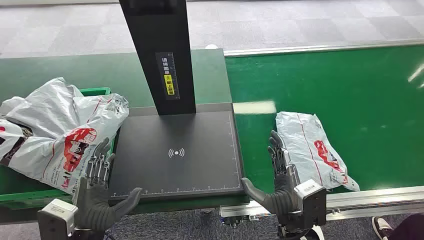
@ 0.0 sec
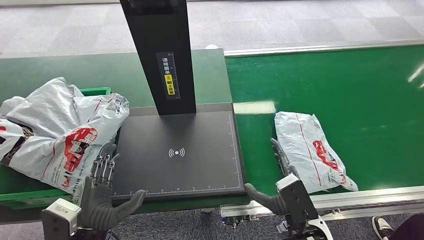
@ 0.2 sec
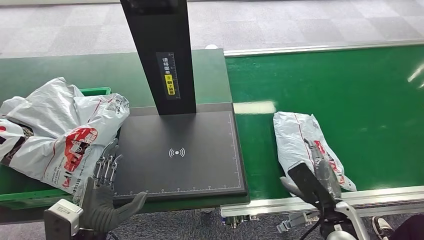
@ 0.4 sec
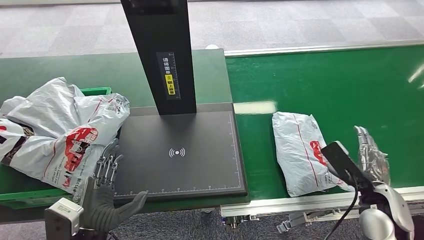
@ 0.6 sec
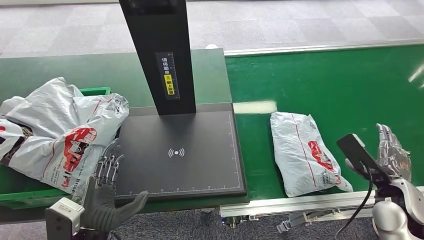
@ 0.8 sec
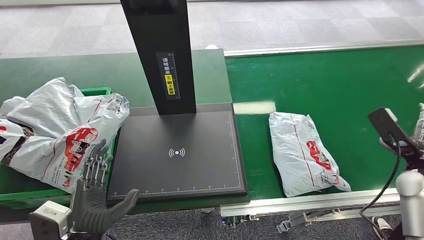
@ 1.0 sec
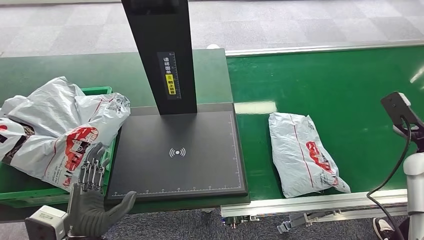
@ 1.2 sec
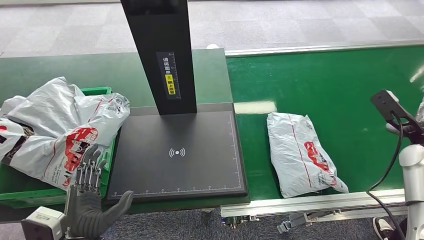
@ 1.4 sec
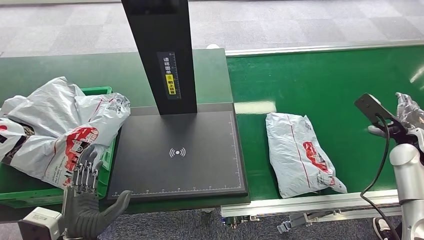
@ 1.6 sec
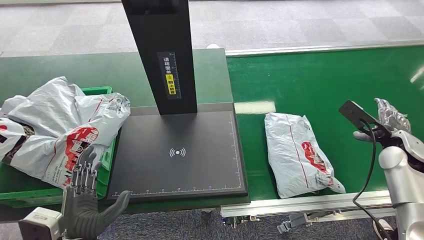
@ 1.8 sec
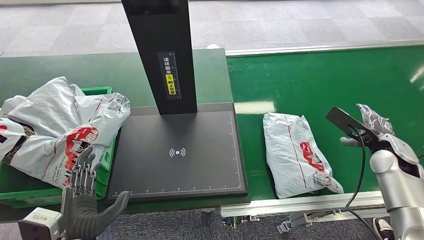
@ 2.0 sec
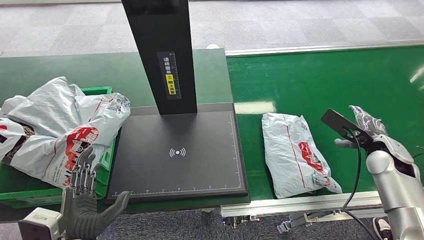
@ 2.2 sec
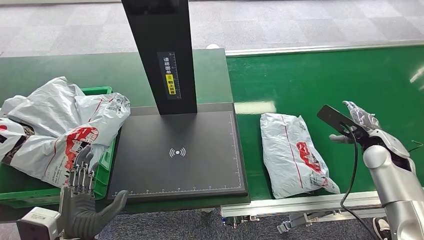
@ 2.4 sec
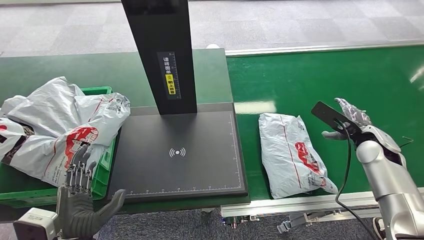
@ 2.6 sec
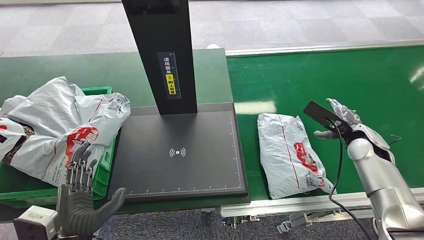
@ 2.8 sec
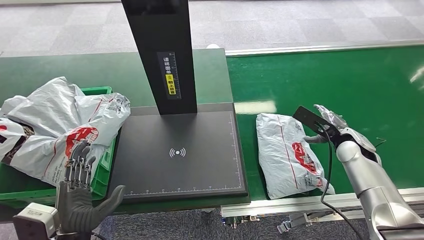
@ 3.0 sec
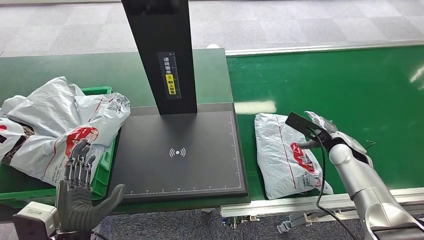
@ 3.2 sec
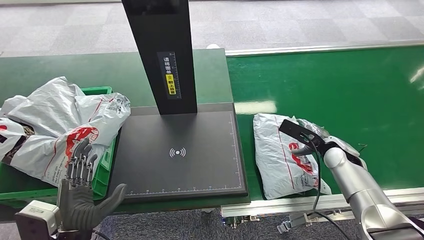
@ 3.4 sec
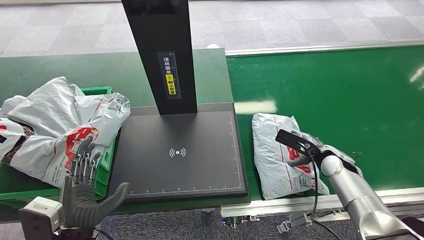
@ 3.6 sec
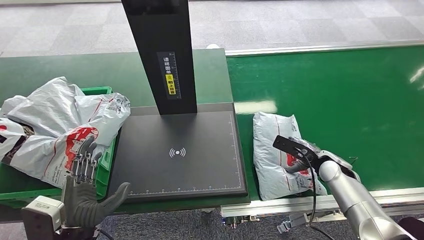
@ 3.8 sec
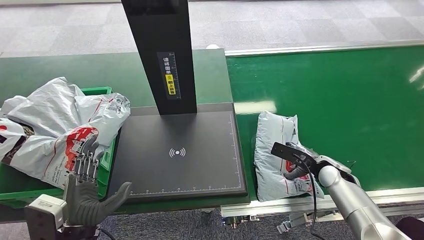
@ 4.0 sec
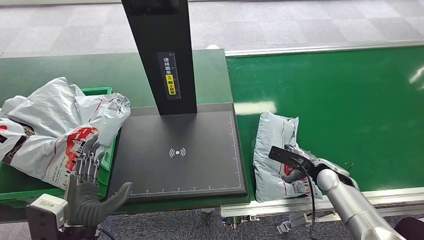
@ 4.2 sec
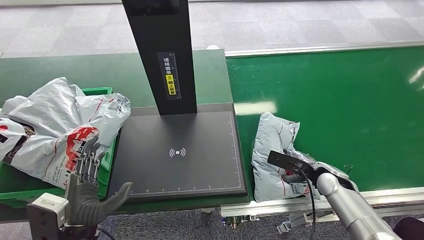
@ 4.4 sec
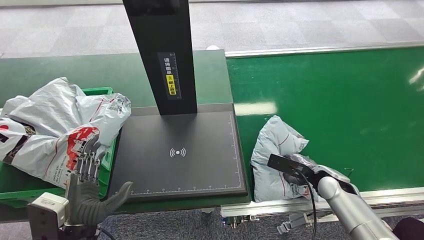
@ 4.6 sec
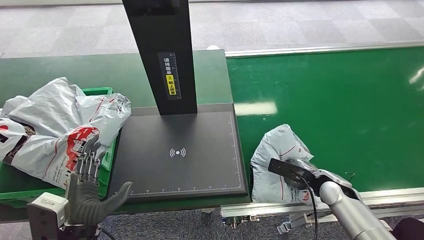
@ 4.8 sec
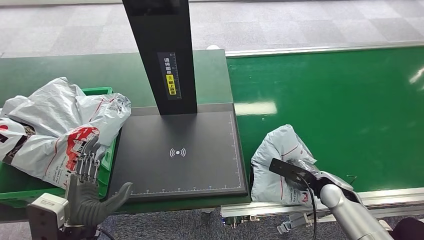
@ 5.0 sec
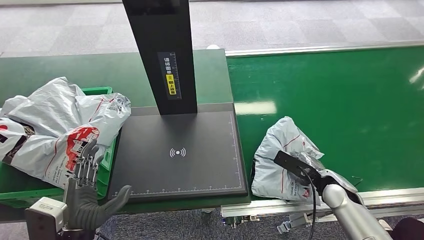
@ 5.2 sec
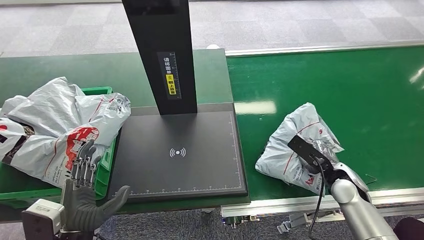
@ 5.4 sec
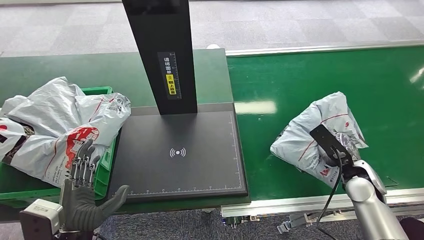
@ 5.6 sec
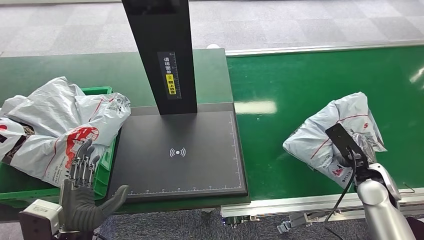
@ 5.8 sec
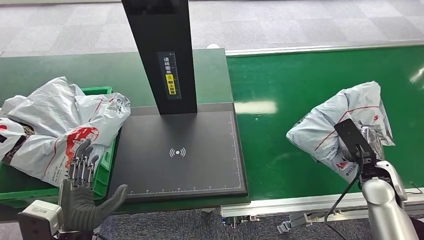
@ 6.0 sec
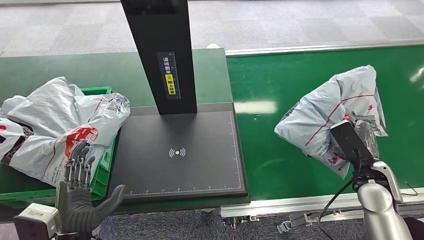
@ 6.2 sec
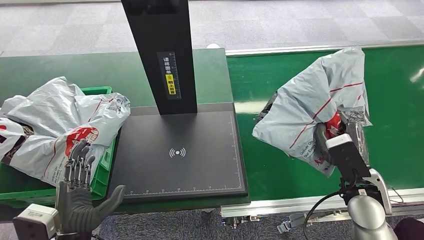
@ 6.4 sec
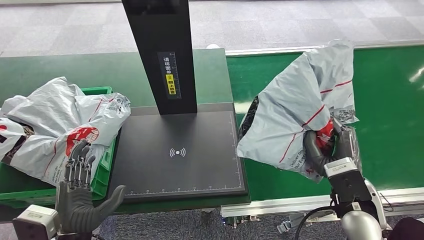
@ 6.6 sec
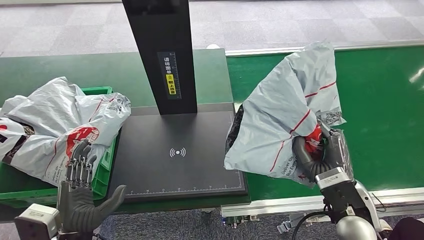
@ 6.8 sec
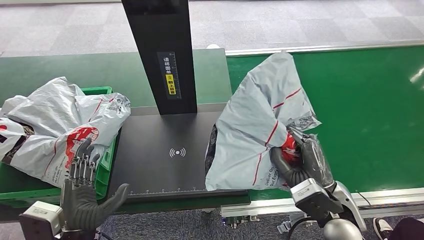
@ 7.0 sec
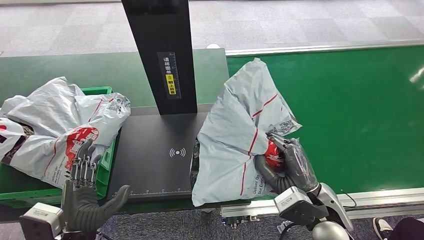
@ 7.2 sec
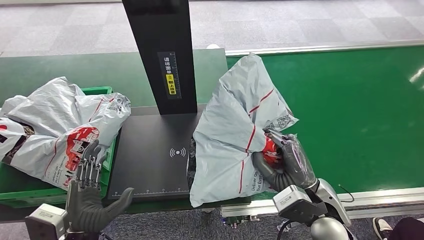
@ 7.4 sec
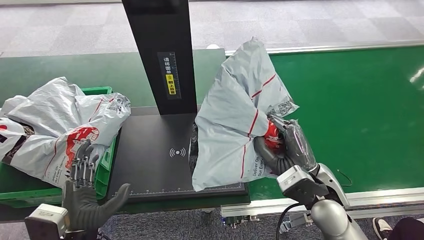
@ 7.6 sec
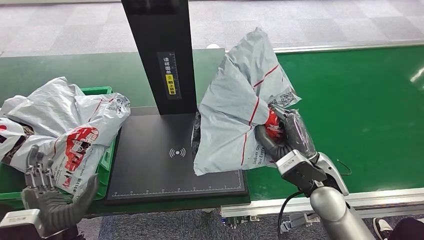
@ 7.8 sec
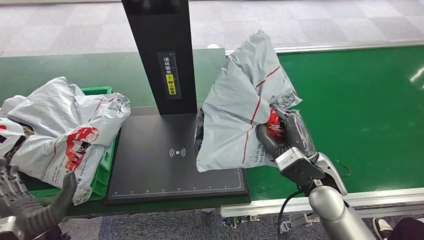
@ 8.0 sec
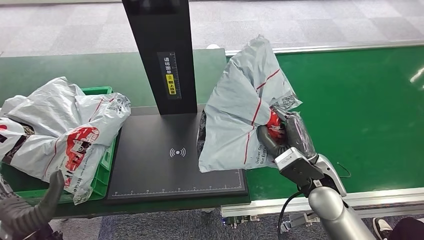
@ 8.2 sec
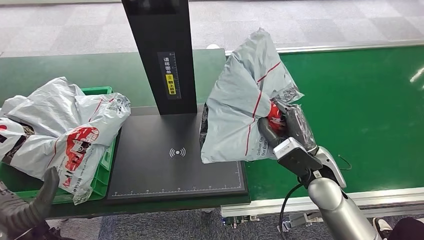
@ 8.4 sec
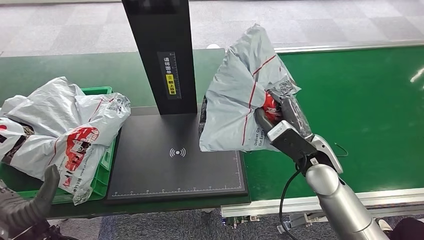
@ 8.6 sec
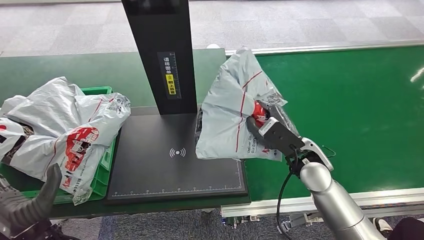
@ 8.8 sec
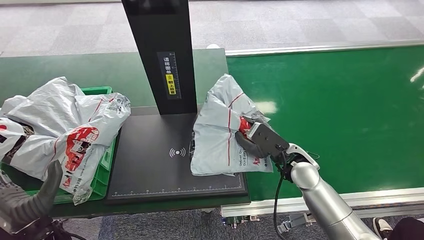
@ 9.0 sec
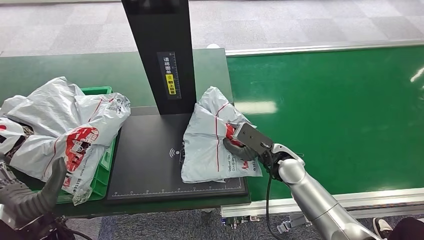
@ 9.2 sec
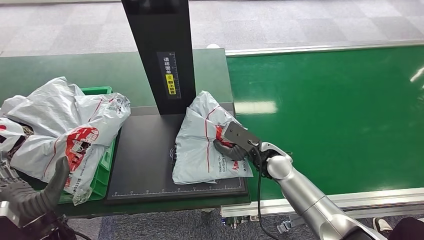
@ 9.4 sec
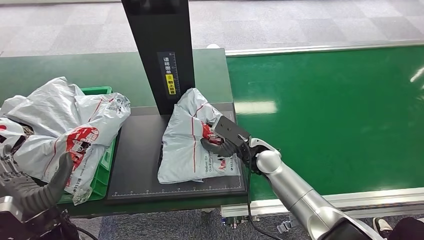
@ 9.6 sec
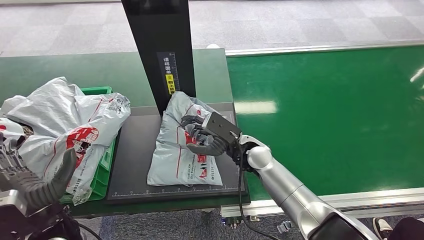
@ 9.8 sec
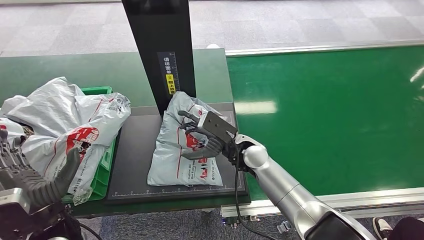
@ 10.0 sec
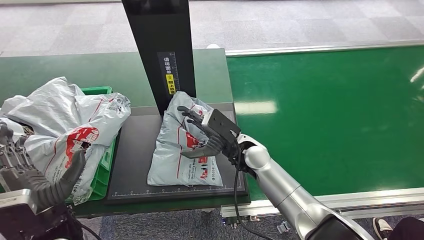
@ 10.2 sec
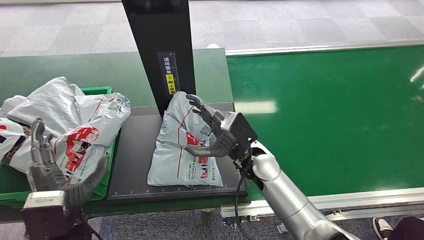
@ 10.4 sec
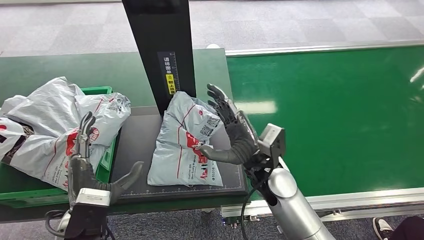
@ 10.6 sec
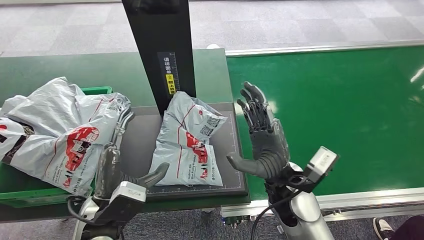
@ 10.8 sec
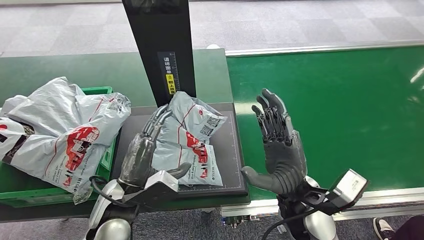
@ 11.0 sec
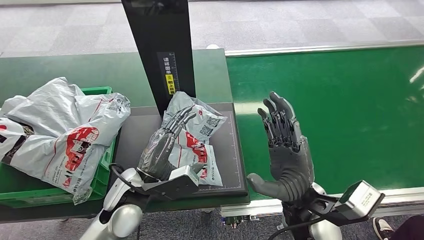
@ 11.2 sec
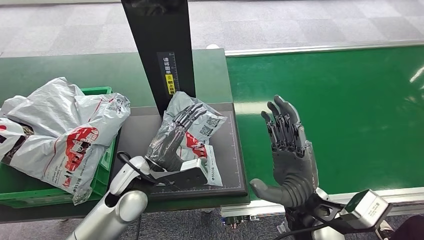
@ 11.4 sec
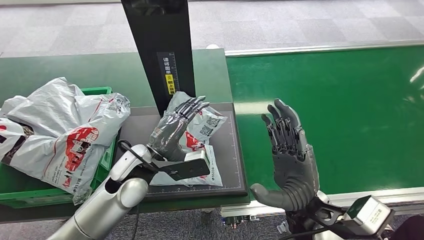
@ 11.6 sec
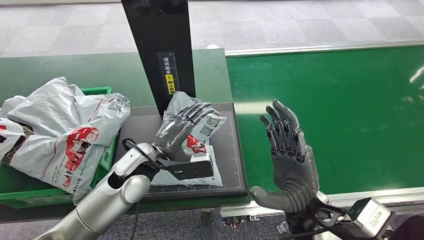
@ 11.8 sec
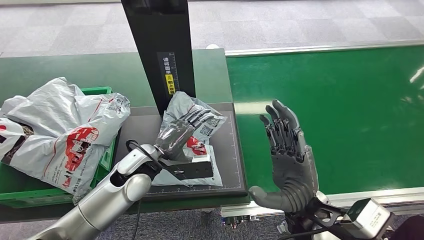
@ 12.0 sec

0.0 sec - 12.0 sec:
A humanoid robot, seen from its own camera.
Task of the whole recording: Weigh the package on the weighing device and place it in the left basket.
Step, 0.0 sec - 6.4 sec: Pick up the package from the conveyor belt.
Step, 6.6 sec - 10.4 sec: Place the package onto the inbound machine.
1.6 sec - 3.0 sec: The right hand heads to the left, covering approximately 10 cm.
3.0 sec - 4.4 sec: The right hand goes about 10 cm downward and backward.
4.4 sec - 6.0 sec: The right hand travels upward and to the right by some 10 cm.
7.6 sec - 9.0 sec: The left hand shifts roughly 5 cm to the left. Meanwhile the right hand goes approximately 10 cm forward.

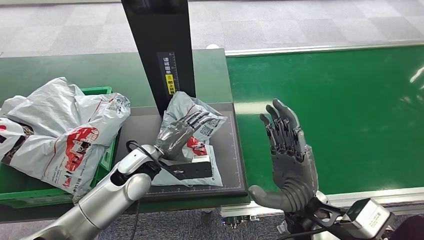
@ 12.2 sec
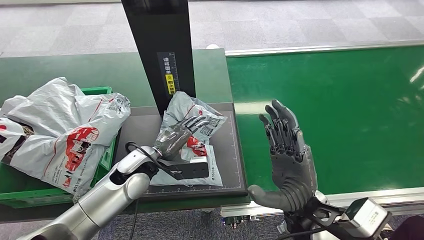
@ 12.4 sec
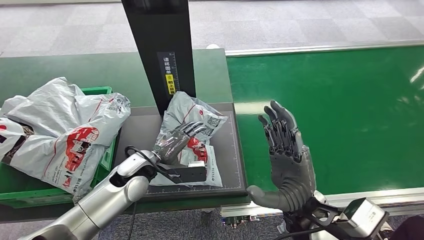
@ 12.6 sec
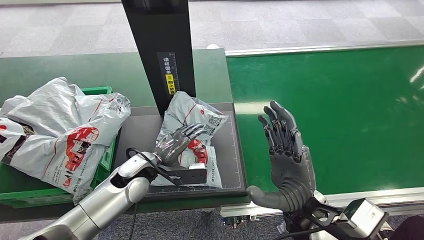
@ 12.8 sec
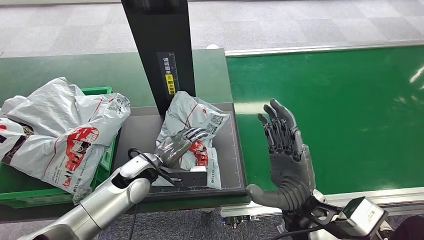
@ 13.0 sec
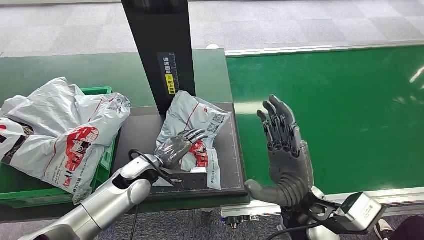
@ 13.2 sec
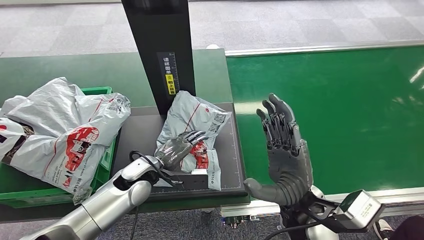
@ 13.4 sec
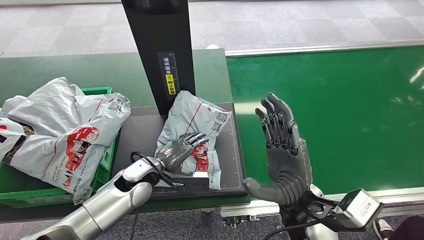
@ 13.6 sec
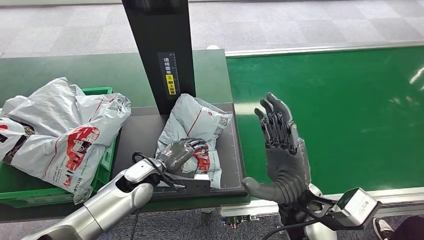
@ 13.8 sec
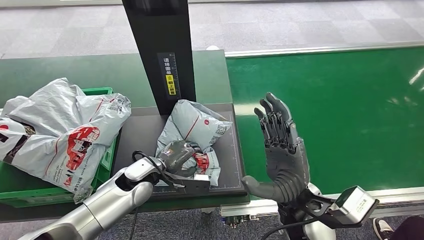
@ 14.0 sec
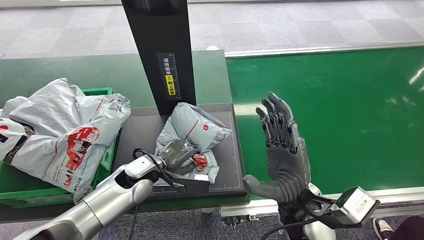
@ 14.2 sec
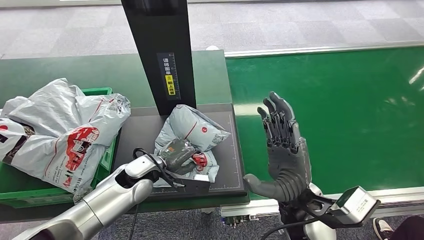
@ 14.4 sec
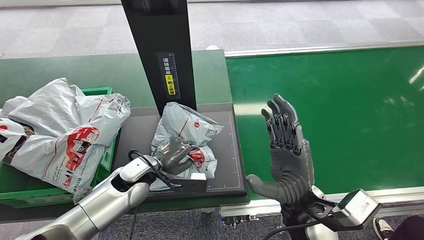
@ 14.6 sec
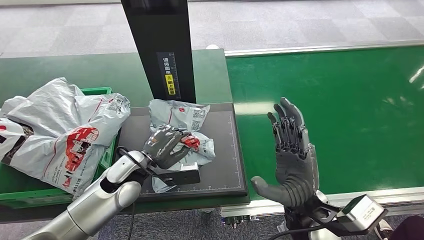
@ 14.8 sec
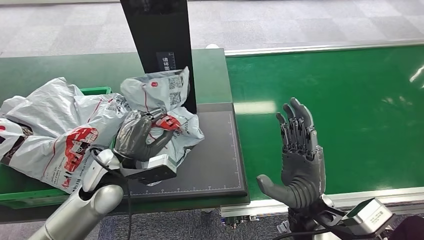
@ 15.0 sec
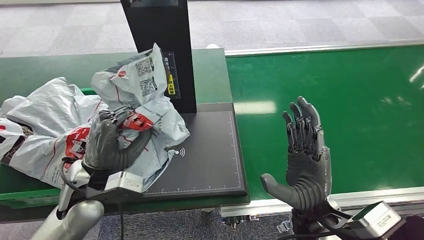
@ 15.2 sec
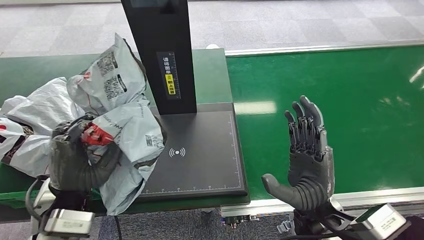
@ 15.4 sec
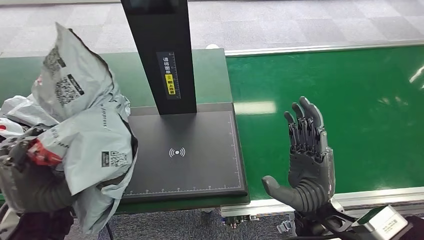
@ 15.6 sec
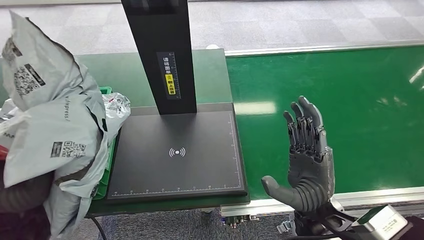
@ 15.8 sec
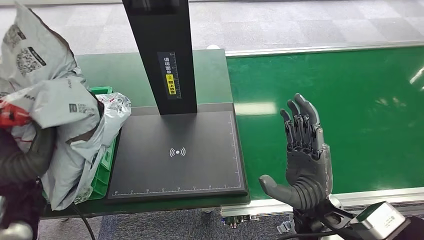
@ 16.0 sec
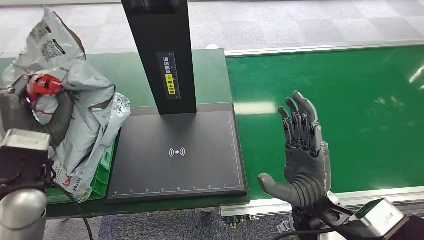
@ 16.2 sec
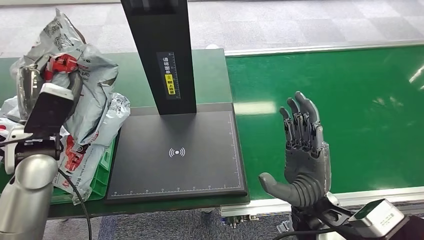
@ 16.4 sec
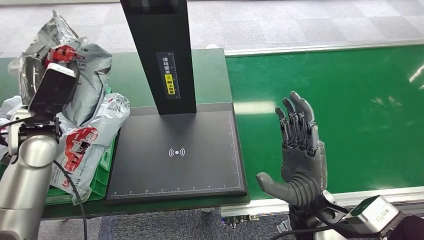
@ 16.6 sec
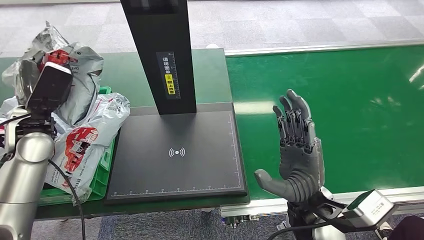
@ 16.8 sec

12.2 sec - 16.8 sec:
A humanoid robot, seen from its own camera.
Task of the whole recording: Weigh the package on the weighing device and place it in the left basket.
Step, 12.2 sec - 15.2 sec: Pick up the package from the inbound machine.
12.2 sec - 13.8 sec: The left hand shifts some 5 cm downward.
